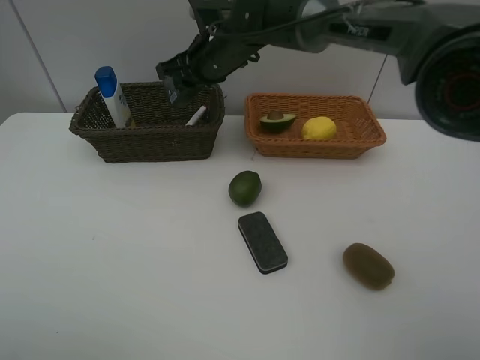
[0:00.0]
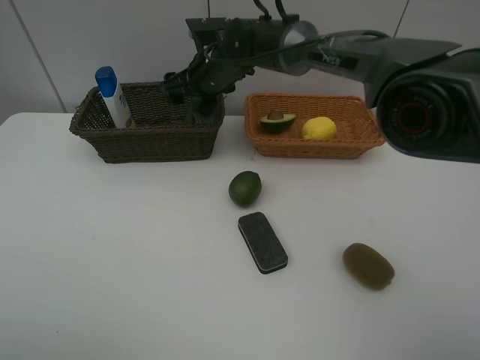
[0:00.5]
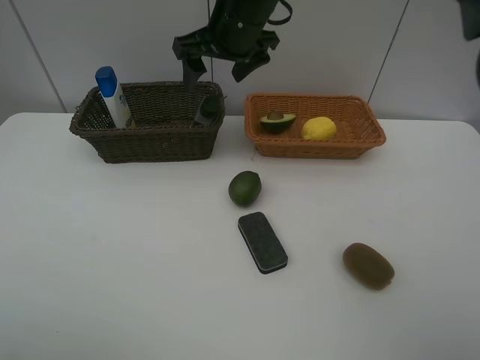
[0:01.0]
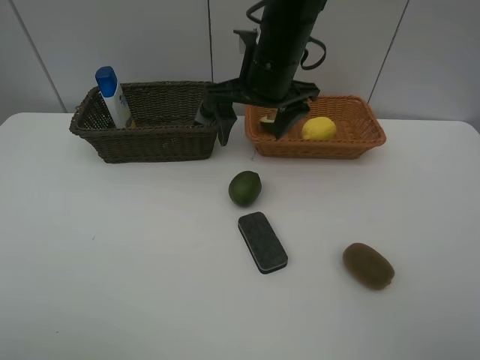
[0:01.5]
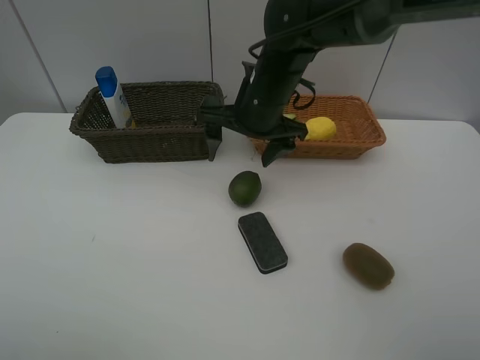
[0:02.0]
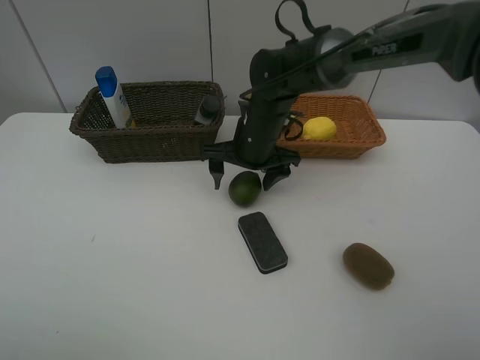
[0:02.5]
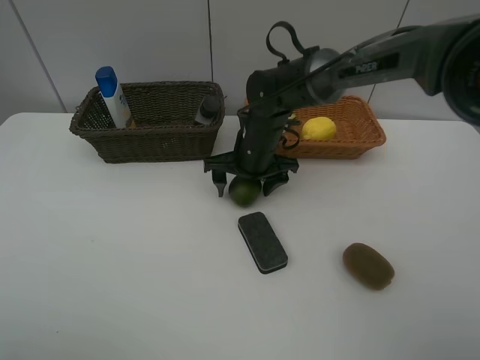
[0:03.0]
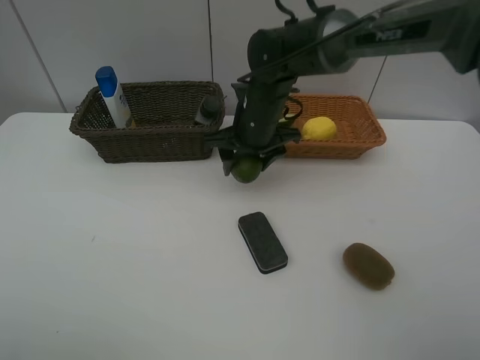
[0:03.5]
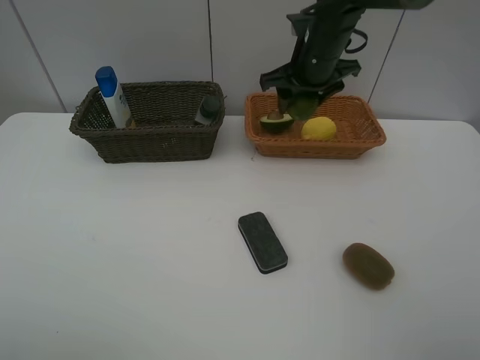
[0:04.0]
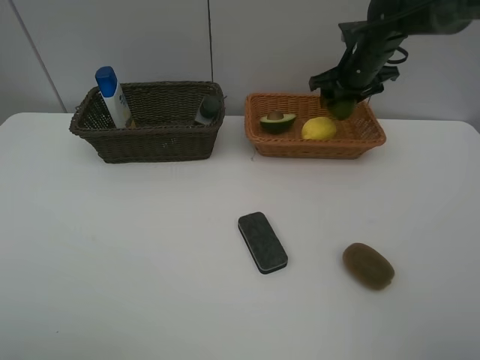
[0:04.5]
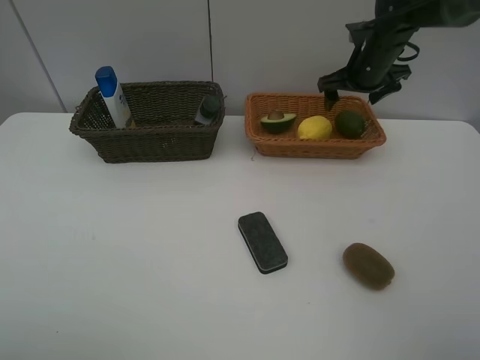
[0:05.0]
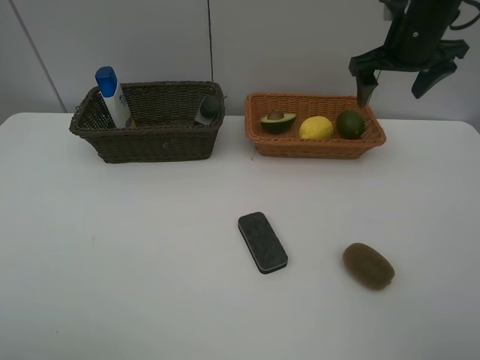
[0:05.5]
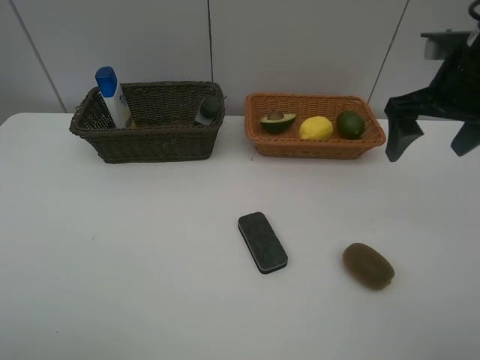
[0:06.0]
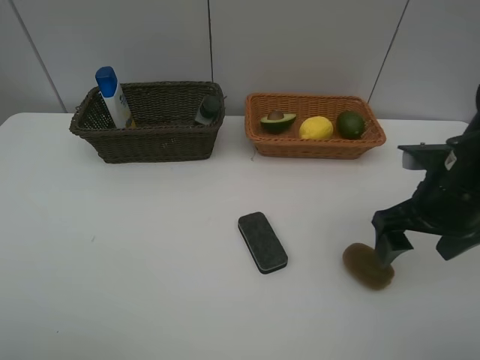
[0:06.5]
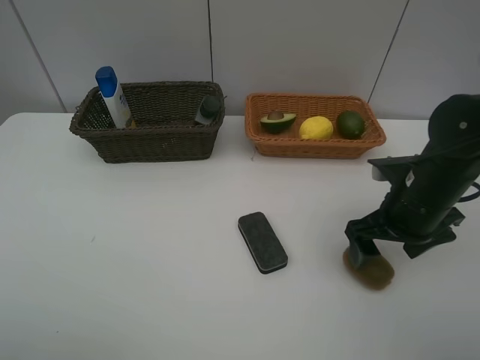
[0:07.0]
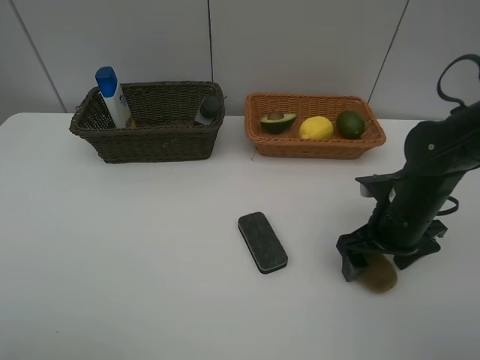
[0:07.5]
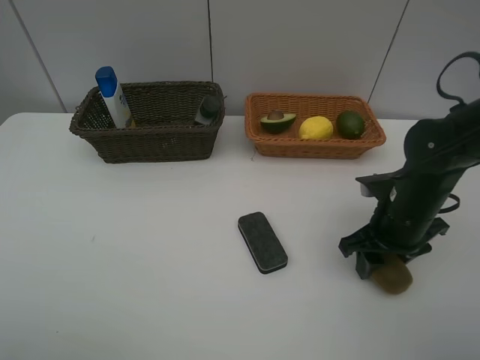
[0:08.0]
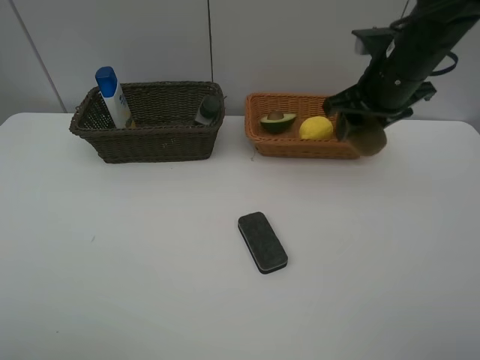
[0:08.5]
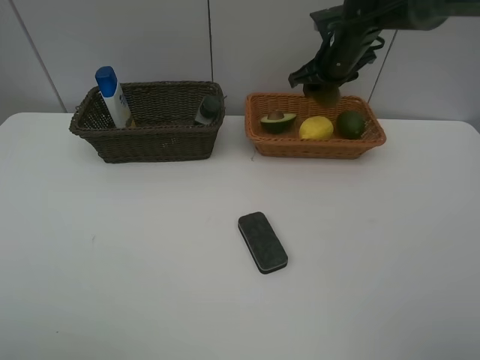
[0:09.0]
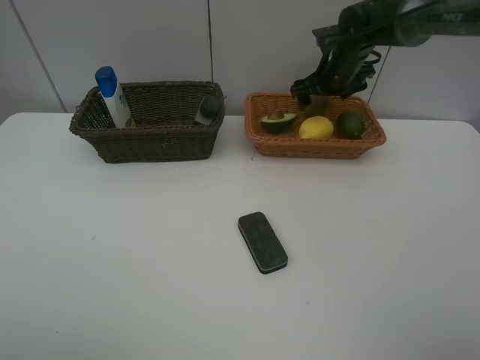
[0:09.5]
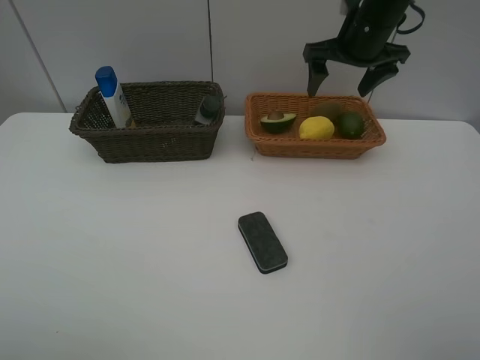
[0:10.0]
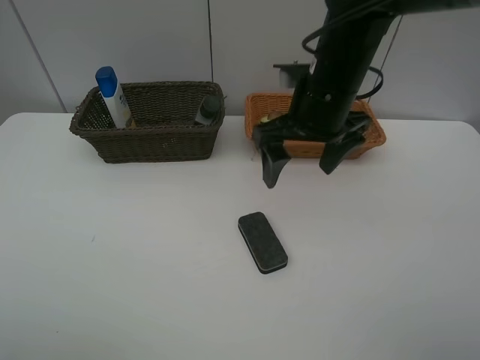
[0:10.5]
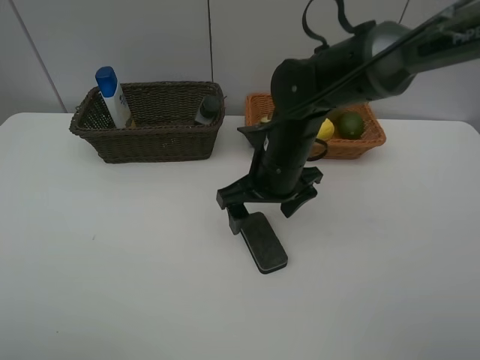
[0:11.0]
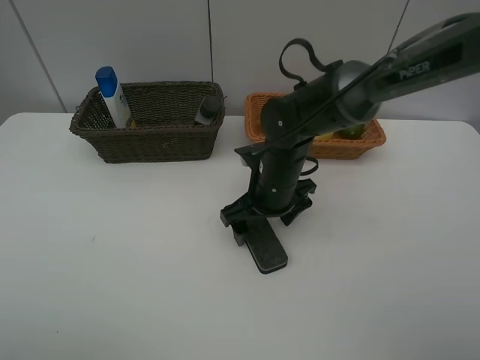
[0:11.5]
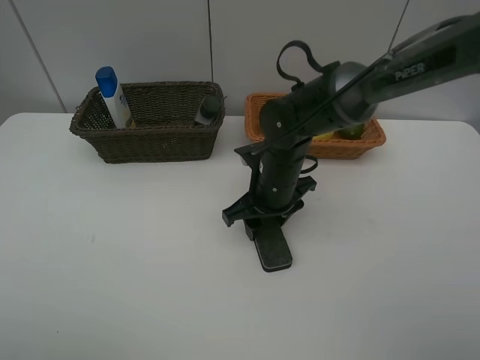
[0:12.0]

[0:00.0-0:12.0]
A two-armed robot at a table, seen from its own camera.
Task of the whole recording: Place multiple objects separately in different baskets.
Step, 0:01.0 to 0:03.5: Pick up the lime with right gripper.
Step, 0:04.0 to 0:05.0: Place the lime in the light basket with right gripper.
Step, 0:05.5 to 0:08.0: Pick up kiwi with right gripper.
Step, 0:08.5 to 0:09.5: Place the kiwi in the light basket with right gripper.
0:00.0 to 0:02.0: The right gripper heads backward and to the right, covering about 10 cm, and opens up.
0:02.0 to 0:04.0: The right gripper shifts about 10 cm to the right and forward, travels downward and back again, approximately 10 cm each way, and closes.
0:04.0 to 0:06.0: The right gripper goes some 20 cm backward and to the right, and opens its fingers.
0:06.0 to 0:08.0: The right gripper goes approximately 15 cm downward, and closes up.
0:08.0 to 0:10.0: The right gripper moves forward and upward, approximately 25 cm, and opens up.
0:10.0 to 0:12.0: The right gripper goes roughly 25 cm downward, backward and to the left, and closes.

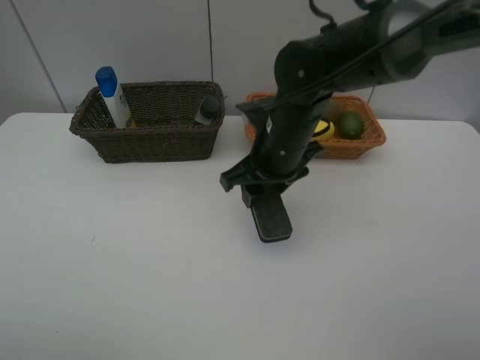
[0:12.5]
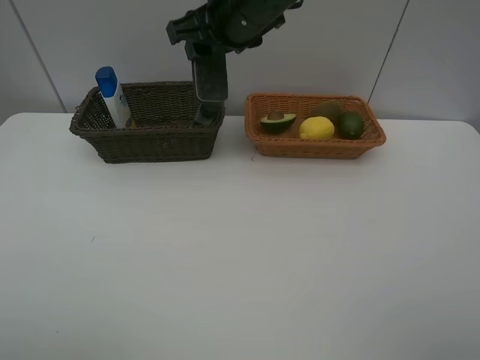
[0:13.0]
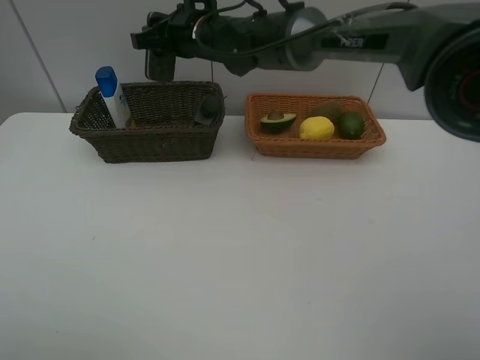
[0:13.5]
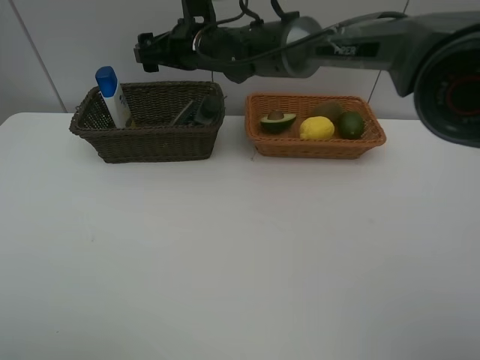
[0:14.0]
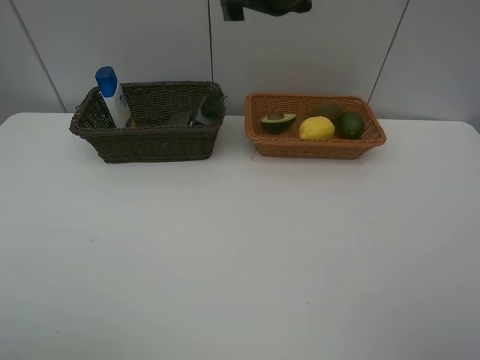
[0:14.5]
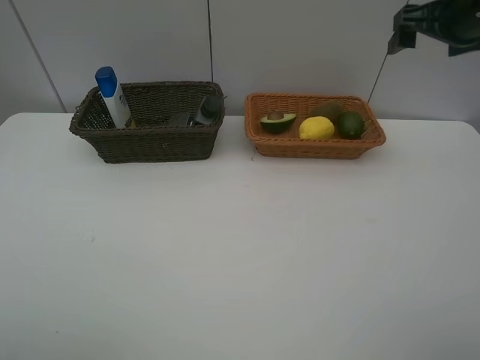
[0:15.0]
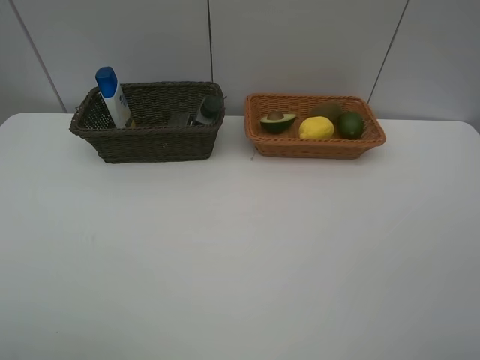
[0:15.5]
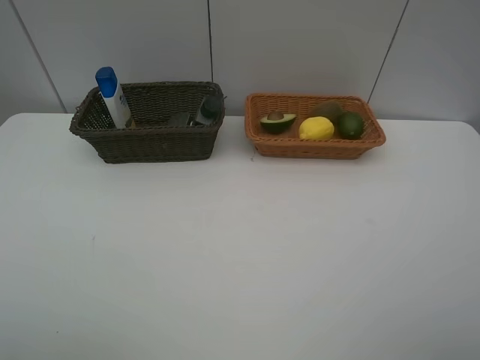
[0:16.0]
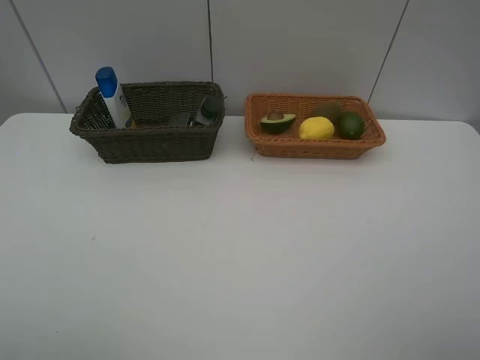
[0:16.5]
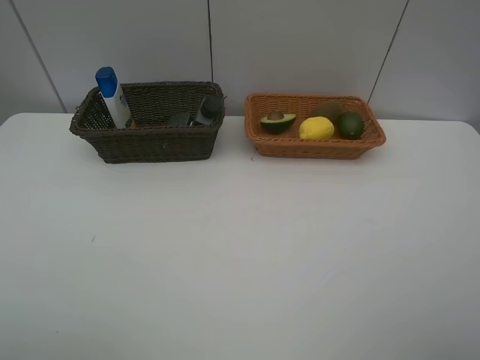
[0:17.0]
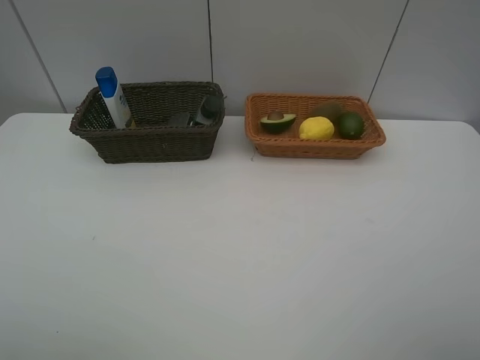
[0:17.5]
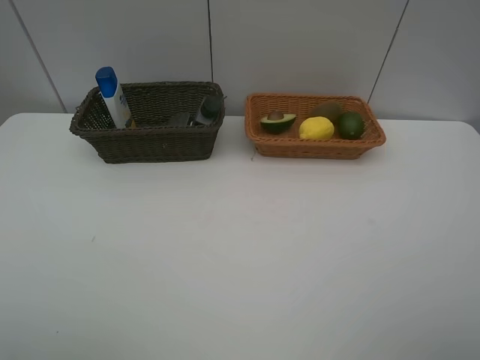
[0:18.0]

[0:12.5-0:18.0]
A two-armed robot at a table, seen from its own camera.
Task of the whole recording: Place multiple objects separately in different baskets.
Step, 0:13.0 to 0:14.0: Place the blackboard eraser in the dark basket with right gripper.
0:12.5 to 0:14.5: The right gripper is displaced forward and upward by about 20 cm, and opens its fingers.
0:14.5 to 0:16.0: The right gripper goes roughly 50 cm backward and to the right.

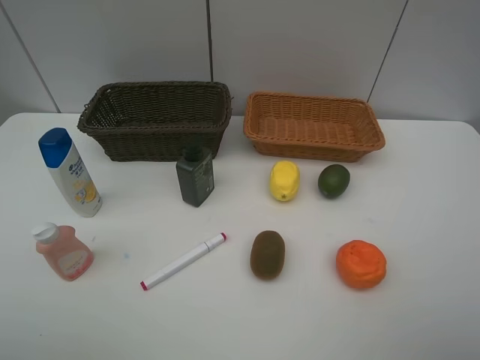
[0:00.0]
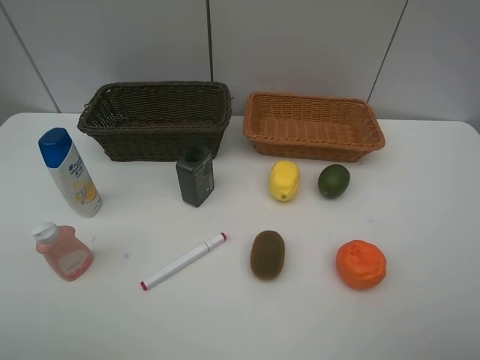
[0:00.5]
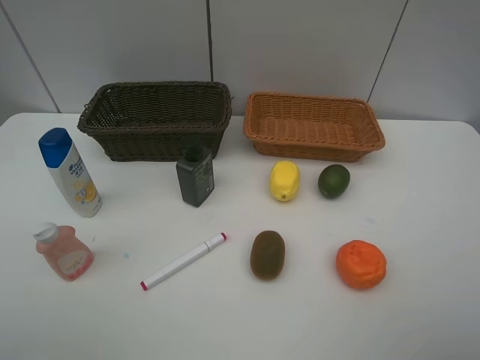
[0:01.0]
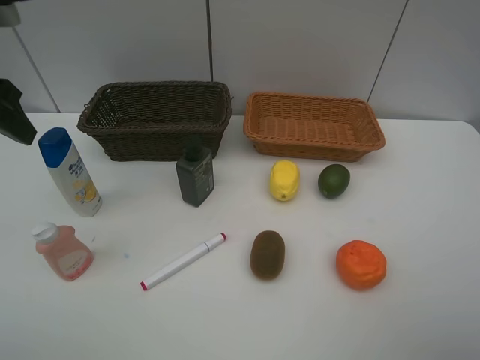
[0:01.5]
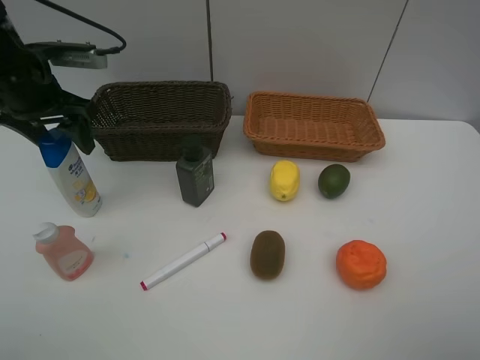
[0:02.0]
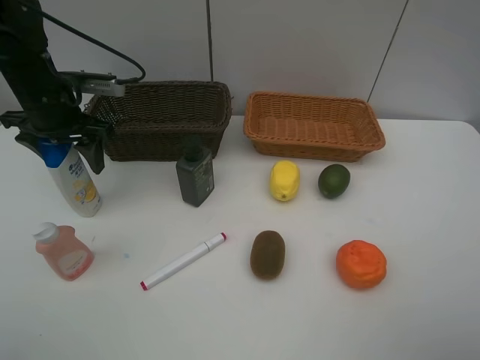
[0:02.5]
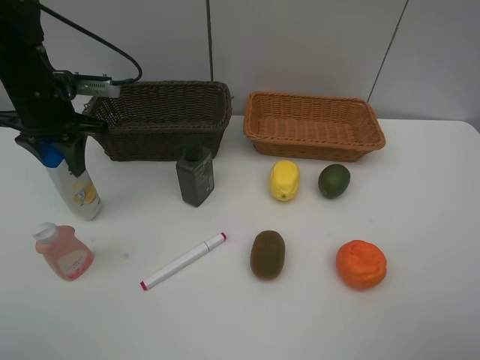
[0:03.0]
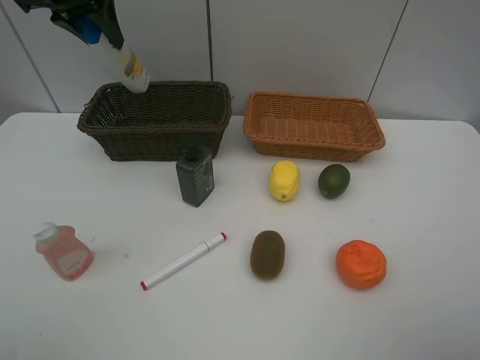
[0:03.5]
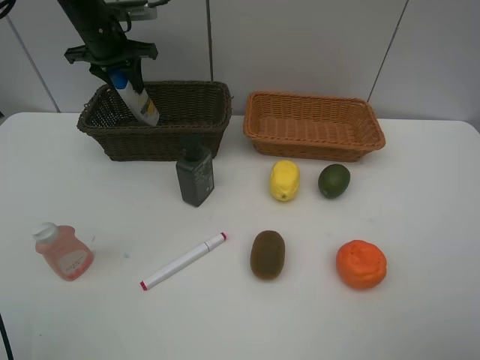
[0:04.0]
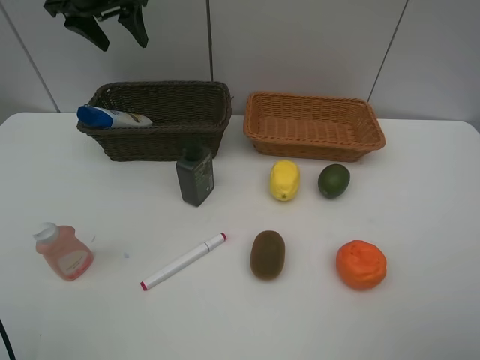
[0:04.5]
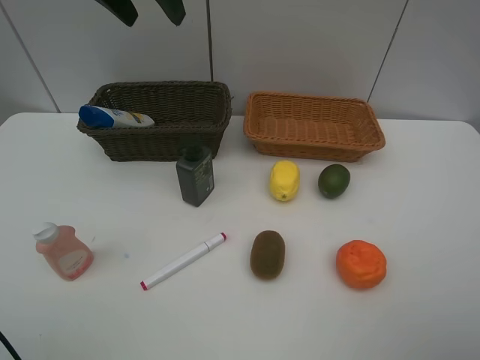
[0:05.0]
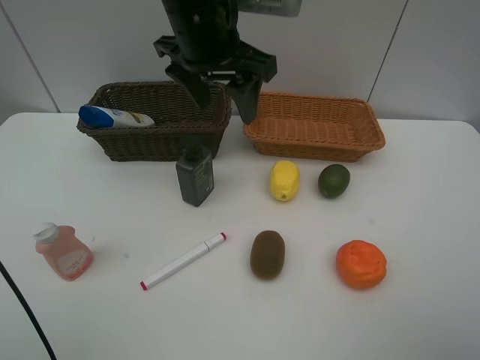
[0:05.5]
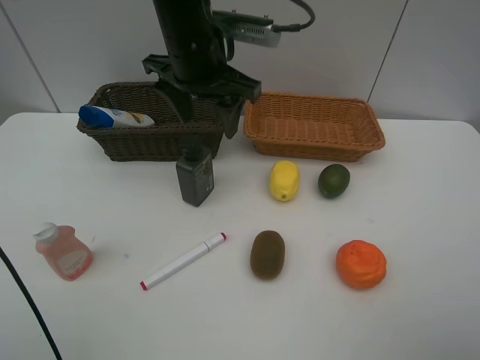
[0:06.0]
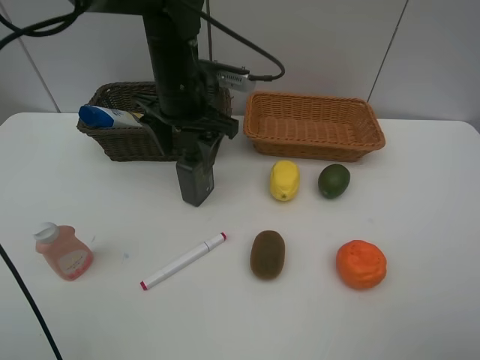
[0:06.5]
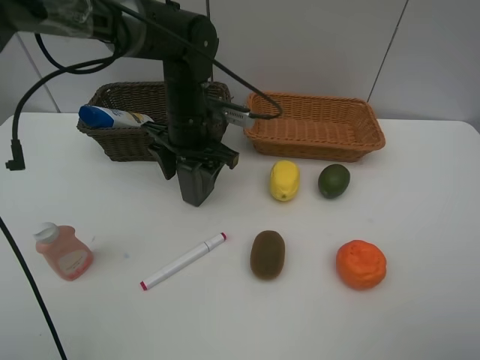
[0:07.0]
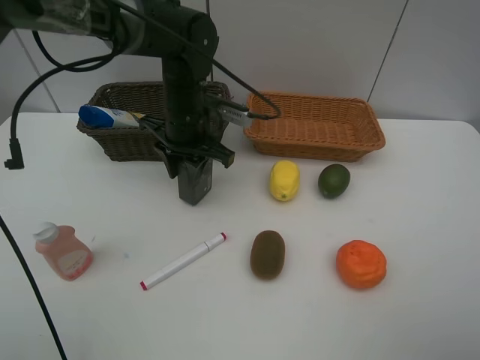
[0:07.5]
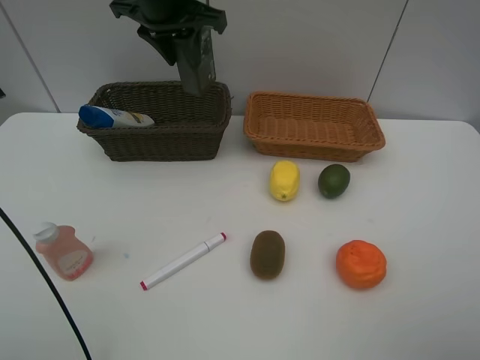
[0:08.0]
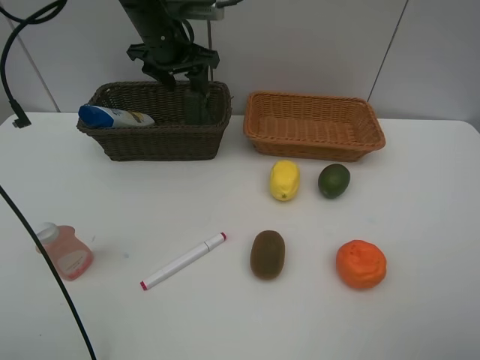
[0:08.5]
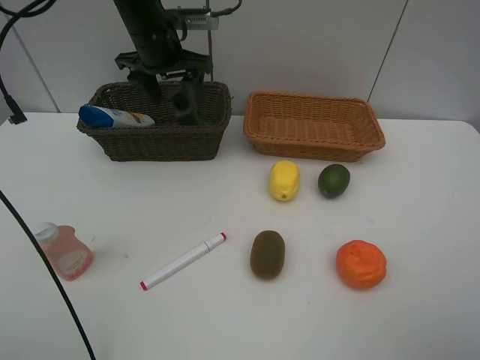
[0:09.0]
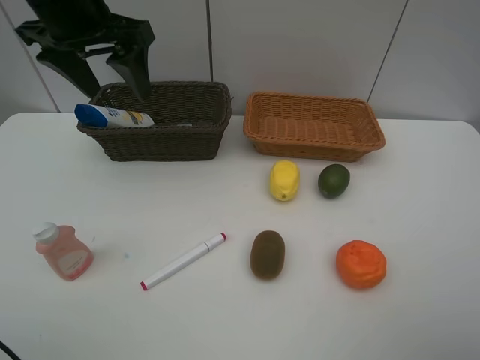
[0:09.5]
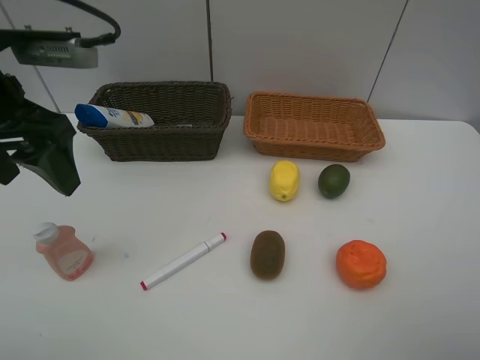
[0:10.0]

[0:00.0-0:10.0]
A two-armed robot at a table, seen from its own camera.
Task of the whole recording: Place multiple objects separately in different baskets.
Step, 0:00.0 to 0:03.0: Pick up the shampoo with left gripper.
Step, 0:03.5 to 0:04.0: Place the shampoo in the dark basket with left gripper.
Step, 0:04.5 to 0:07.5: Pick up the hard facial cleanser with left gripper.
Step, 0:08.0 to 0:08.5: Place the hard facial cleanser in the dark basket with left gripper.
0:00.0 to 0:02.0: The left gripper shifts approximately 35 cm forward.
0:02.0 to 0:04.0: The left gripper shifts approximately 15 cm forward, and closes.
0:04.0 to 0:06.0: The left gripper travels to the right and backward by some 25 cm, and opens up.
0:06.0 to 0:08.0: The left gripper goes about 10 cm forward and to the left, goes downward and returns, roughly 10 cm each way, and closes.
0:08.0 to 0:10.0: The left gripper shifts approximately 25 cm backward and to the left, and opens its fingers.
